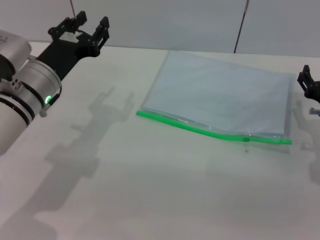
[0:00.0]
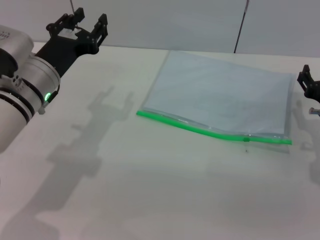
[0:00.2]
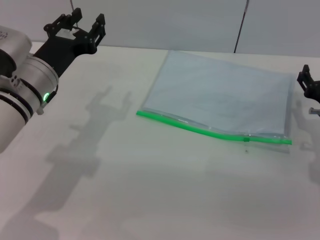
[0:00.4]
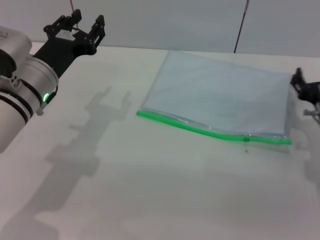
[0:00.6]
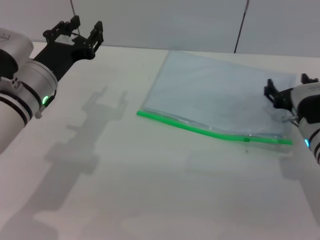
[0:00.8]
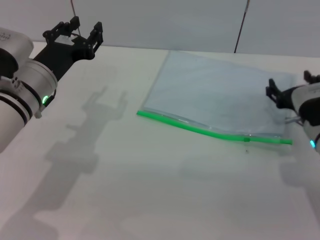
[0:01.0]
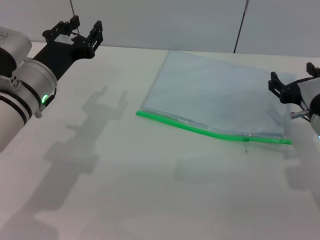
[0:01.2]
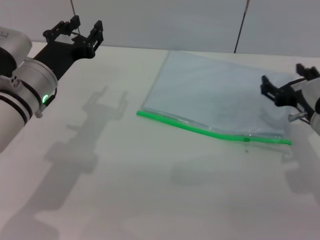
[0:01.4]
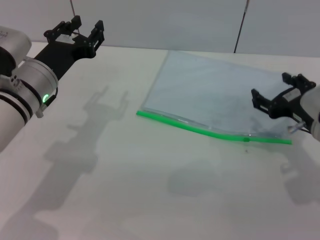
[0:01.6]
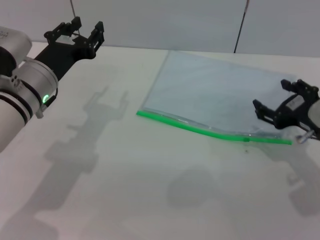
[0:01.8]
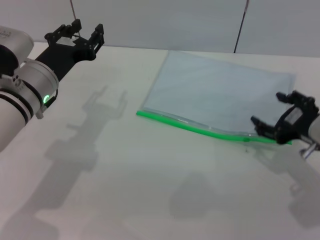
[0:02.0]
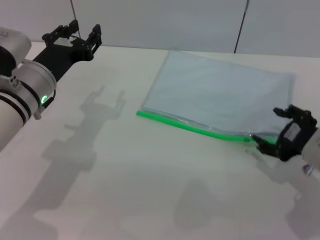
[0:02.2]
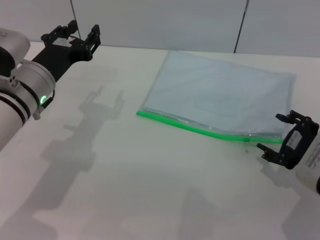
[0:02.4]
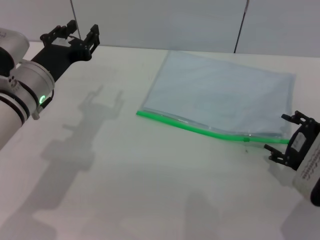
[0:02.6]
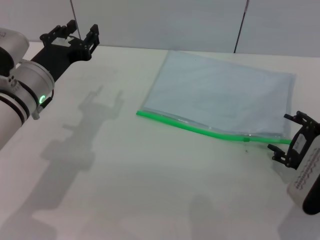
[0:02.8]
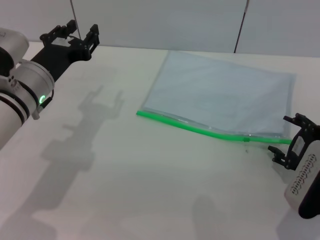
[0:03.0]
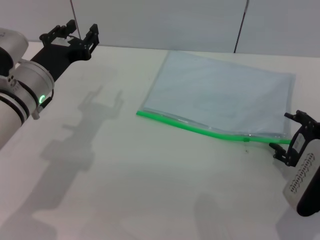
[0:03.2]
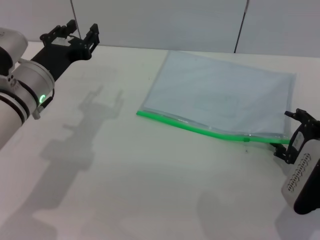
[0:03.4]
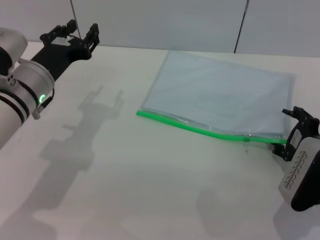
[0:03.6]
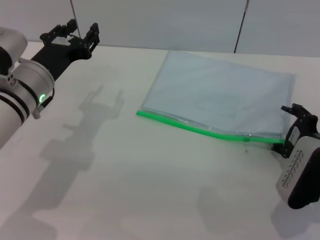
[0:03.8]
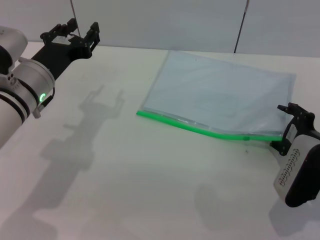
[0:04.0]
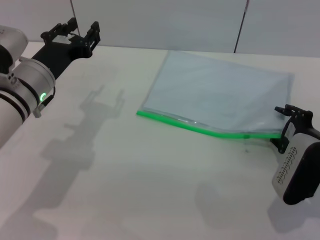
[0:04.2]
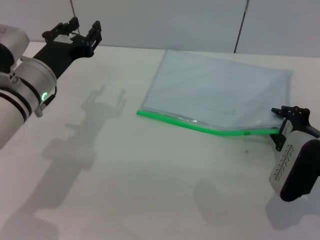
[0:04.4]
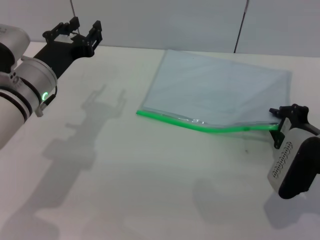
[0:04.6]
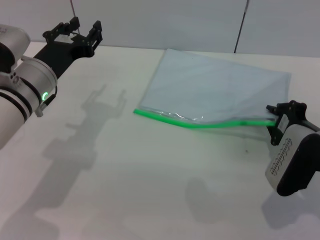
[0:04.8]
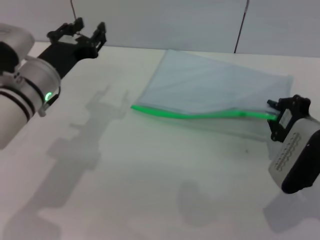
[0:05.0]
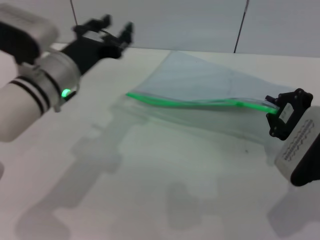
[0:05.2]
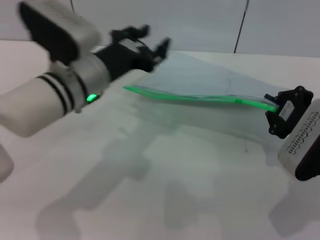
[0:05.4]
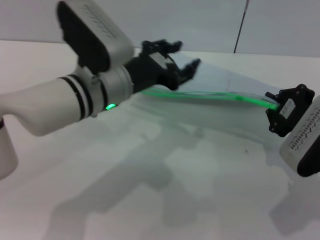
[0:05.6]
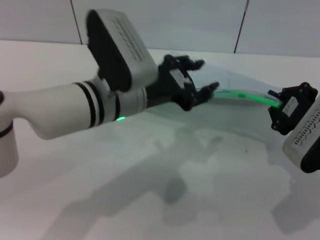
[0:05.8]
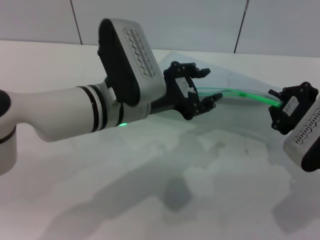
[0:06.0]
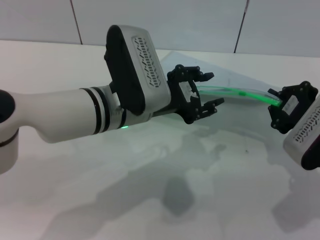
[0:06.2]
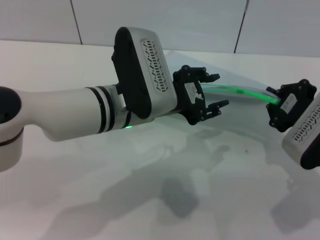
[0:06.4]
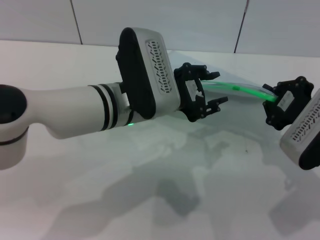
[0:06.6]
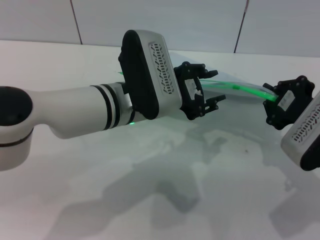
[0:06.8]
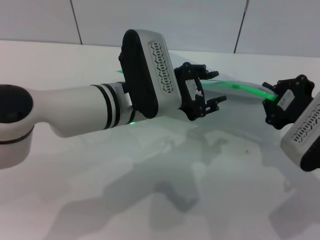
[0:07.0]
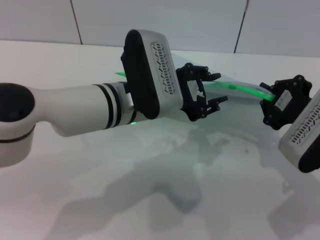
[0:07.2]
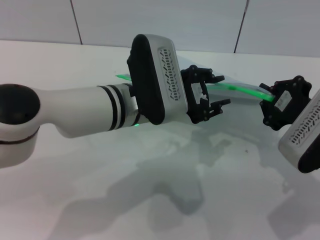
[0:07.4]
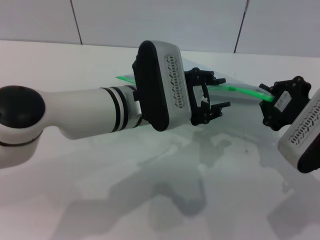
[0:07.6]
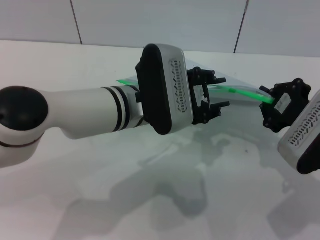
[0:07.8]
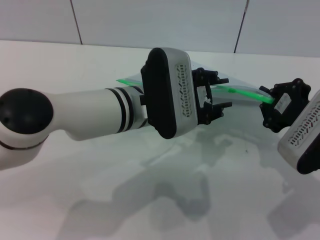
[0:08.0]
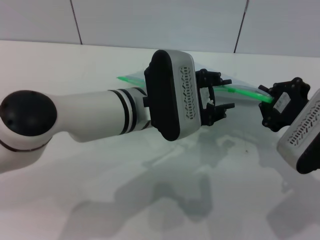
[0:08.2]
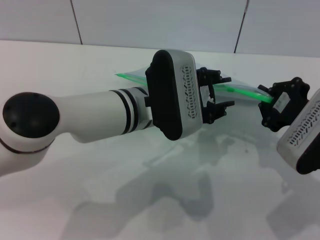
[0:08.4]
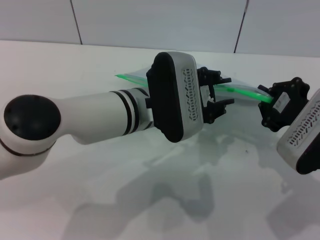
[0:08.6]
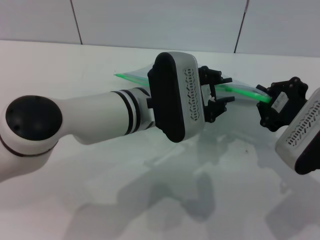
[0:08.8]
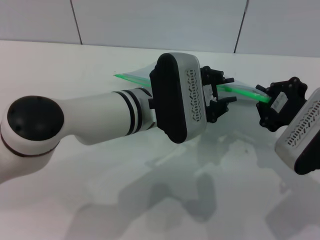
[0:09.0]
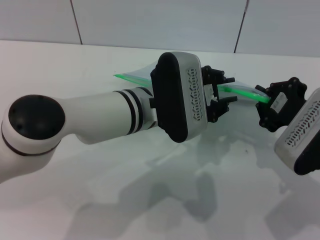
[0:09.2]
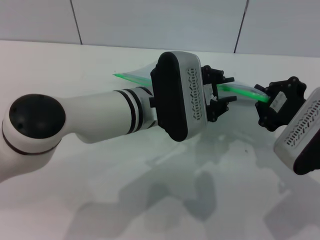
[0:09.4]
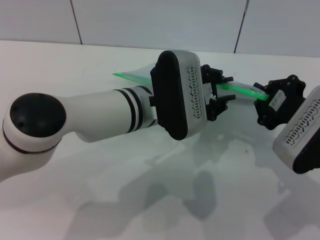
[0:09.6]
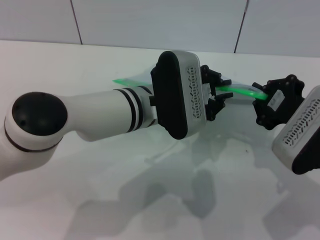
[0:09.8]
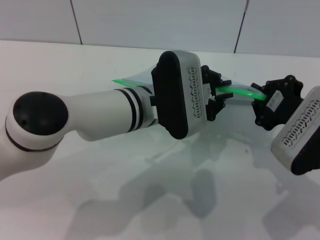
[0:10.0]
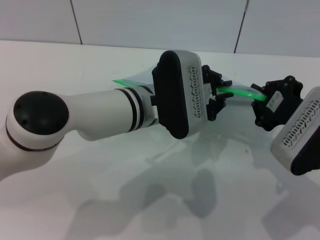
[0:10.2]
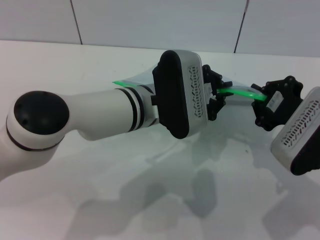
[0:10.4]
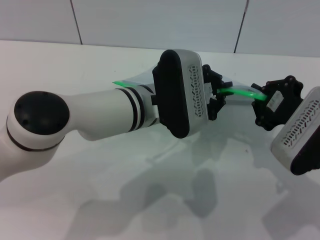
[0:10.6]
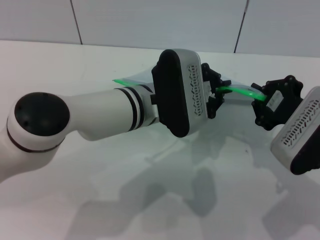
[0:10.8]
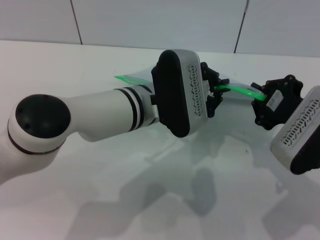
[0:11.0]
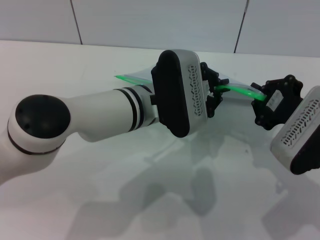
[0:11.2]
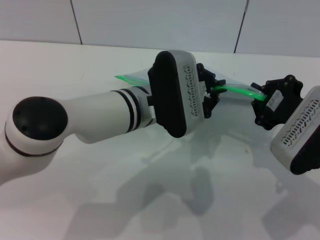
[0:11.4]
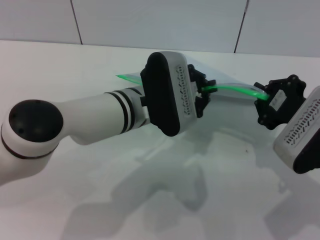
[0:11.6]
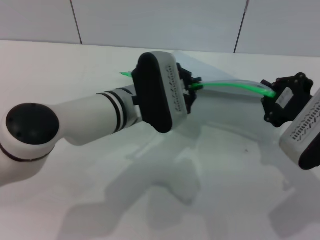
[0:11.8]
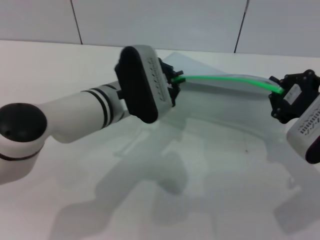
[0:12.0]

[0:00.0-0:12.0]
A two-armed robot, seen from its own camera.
Step, 0:00.0 to 0:05.8: Pick up the transparent plastic bag with the right gripper.
0:00.0 to 0:01.6: The right gripper shifts by about 5 cm.
0:01.6 to 0:03.0: The right gripper is displaced backward by about 5 cm.
0:03.0 to 0:04.4: The grippers stay close to where they were, moving slightly.
0:04.4 to 0:06.0: The right gripper is displaced upward by about 5 cm, and closes, while the left gripper moves to the right, some 10 cm.
0:06.0 to 0:07.6: The grippers make only small movements.
0:07.6 to 0:09.0: There are only small adjustments of the grippers.
0:09.0 to 0:10.4: Both grippers stay put.
0:10.4 to 0:12.0: The left gripper moves some 5 cm.

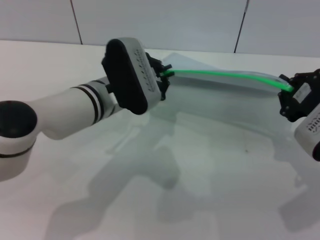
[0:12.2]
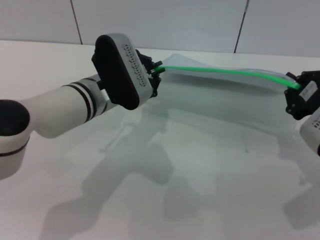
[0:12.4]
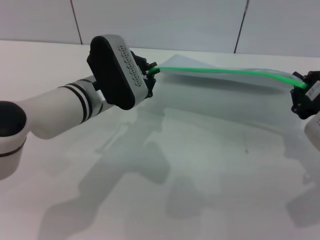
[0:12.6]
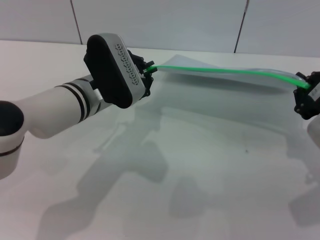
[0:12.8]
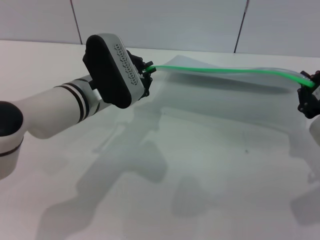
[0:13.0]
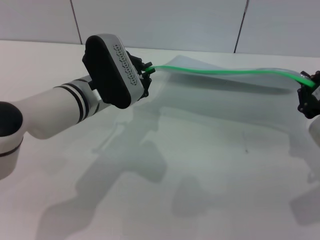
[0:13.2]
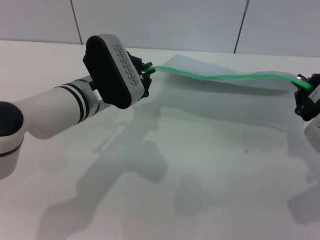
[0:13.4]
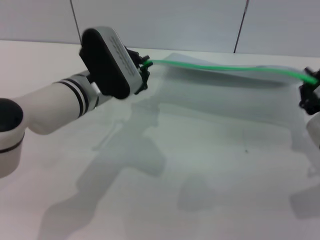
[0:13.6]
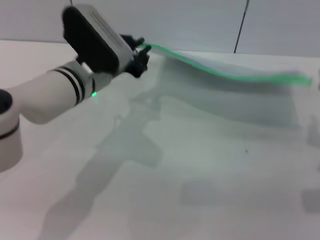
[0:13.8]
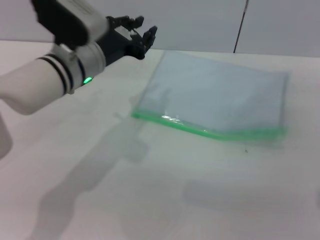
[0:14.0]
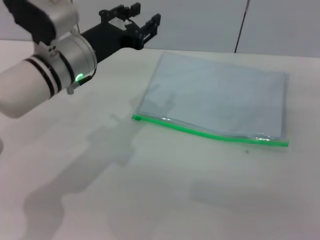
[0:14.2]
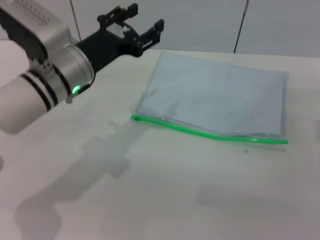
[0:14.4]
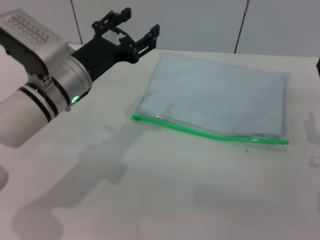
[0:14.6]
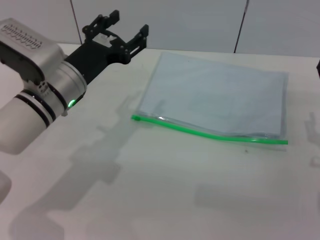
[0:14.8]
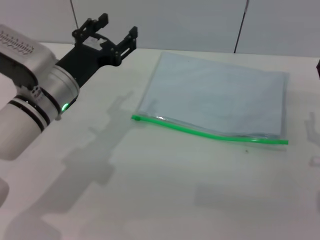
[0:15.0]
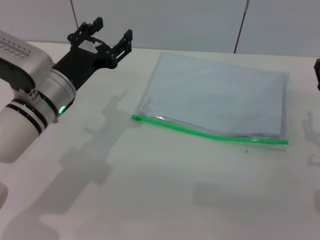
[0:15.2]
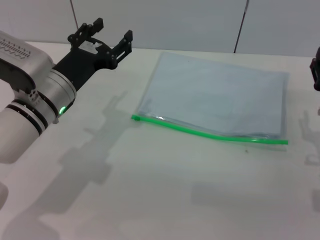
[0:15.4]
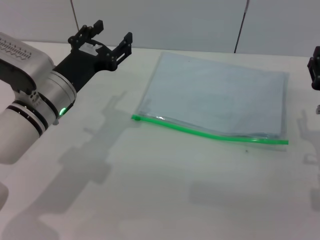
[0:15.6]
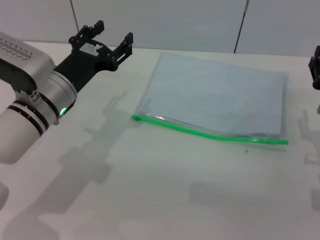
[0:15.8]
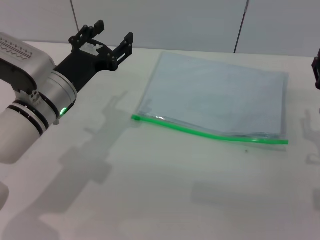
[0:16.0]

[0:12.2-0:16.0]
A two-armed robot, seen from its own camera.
0:12.2 to 0:13.4: The grippers make only small movements.
0:13.4 to 0:14.8: The right gripper goes about 5 cm downward, and opens its fingers. Meanwhile the left gripper opens its fingers.
0:14.8 to 0:16.0: The grippers stay close to where they were, moving slightly.
